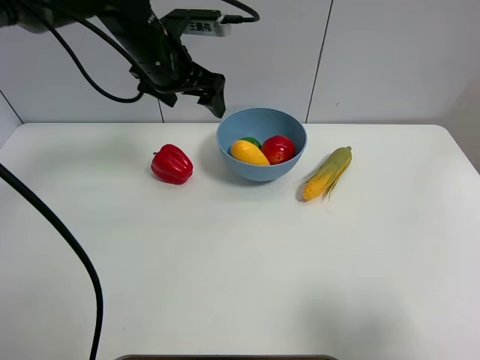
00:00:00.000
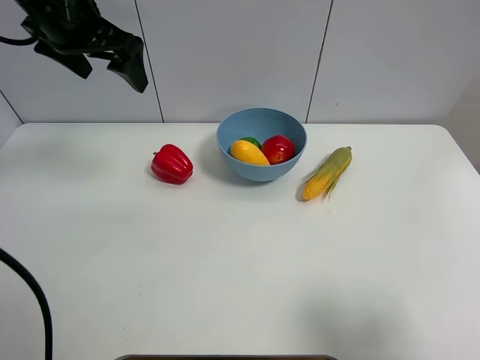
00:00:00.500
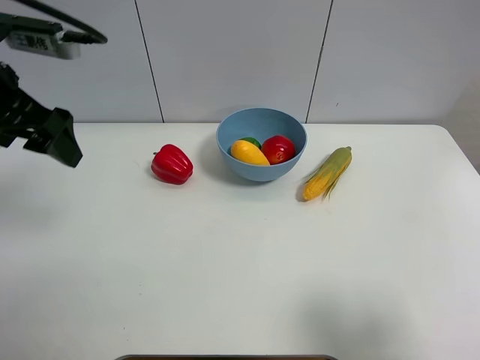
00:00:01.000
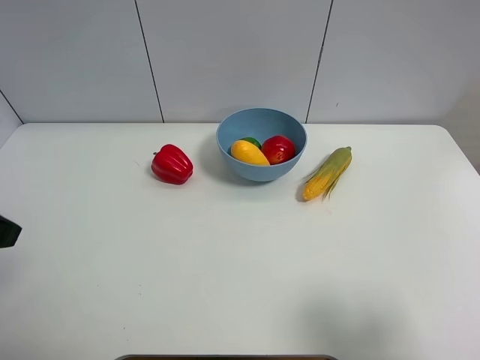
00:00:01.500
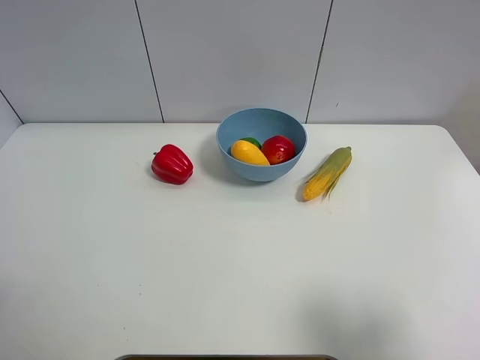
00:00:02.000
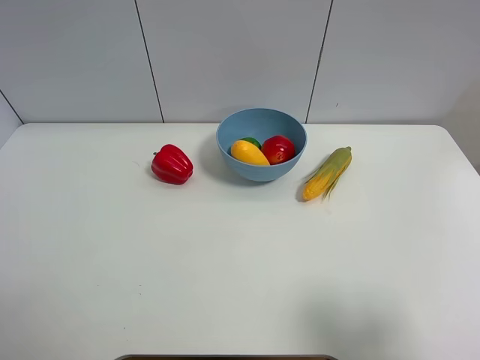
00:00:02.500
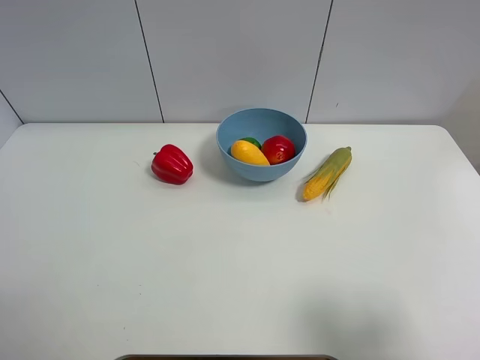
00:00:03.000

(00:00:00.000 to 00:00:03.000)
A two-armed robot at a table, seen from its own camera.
Task of the whole recording: Put the three fruits on the table into a bowl.
00:00:00.000 - 00:00:01.500: The left gripper heads backward and to the left, covering some 35 cm.

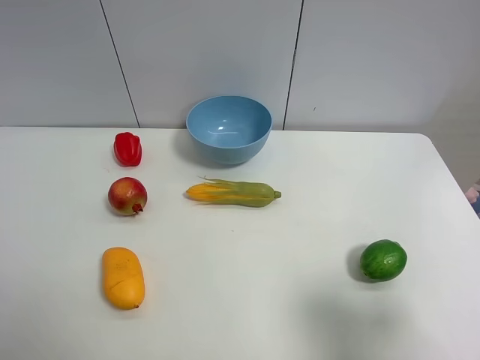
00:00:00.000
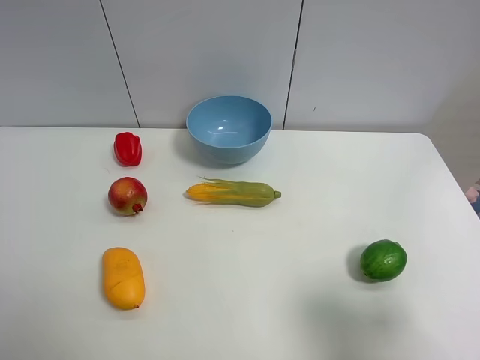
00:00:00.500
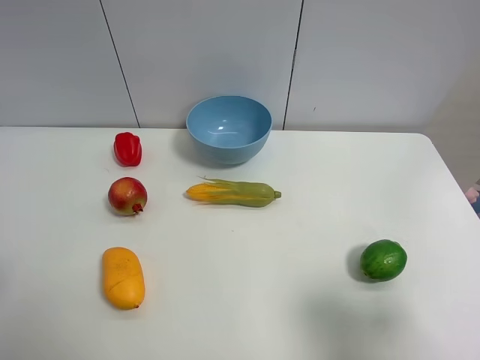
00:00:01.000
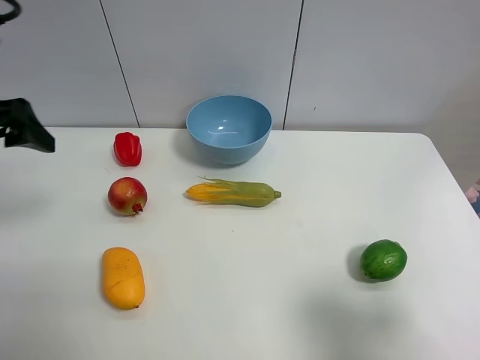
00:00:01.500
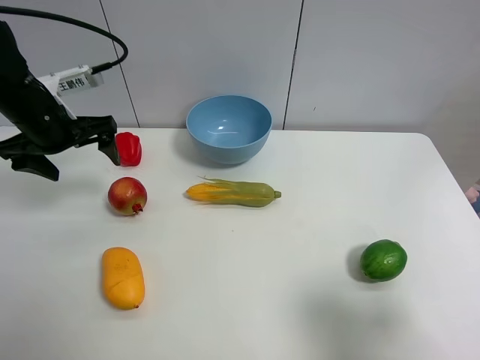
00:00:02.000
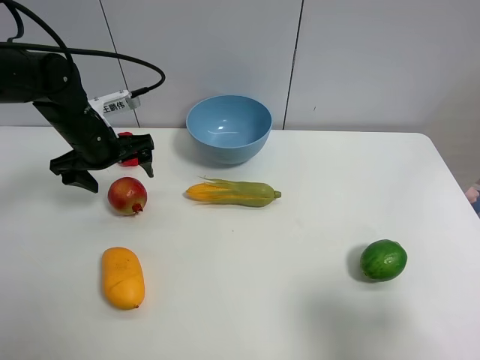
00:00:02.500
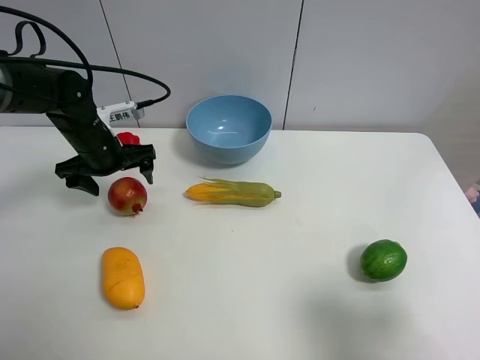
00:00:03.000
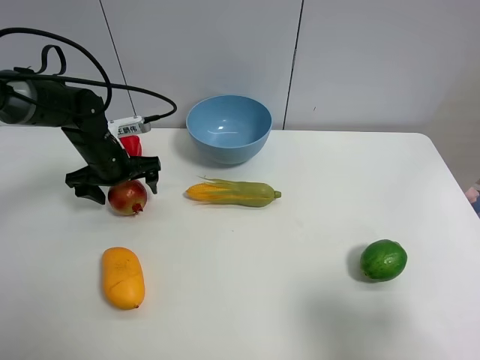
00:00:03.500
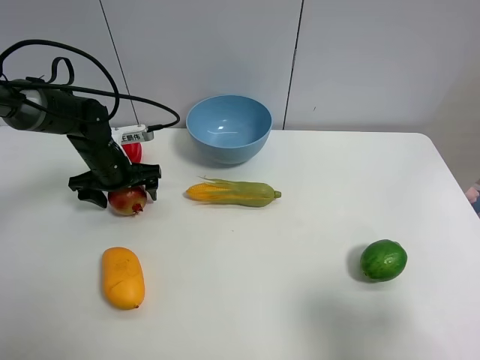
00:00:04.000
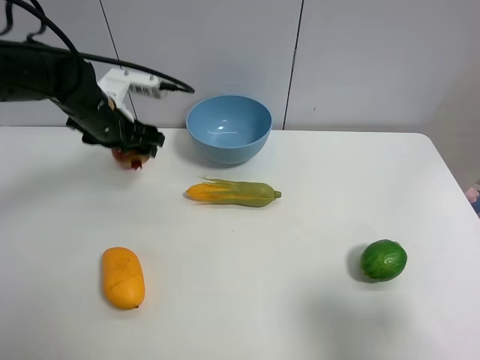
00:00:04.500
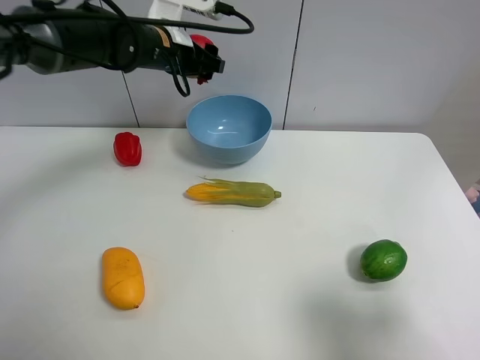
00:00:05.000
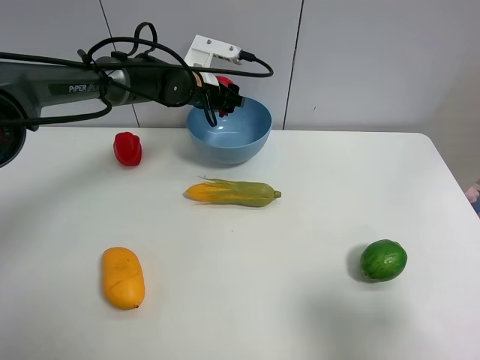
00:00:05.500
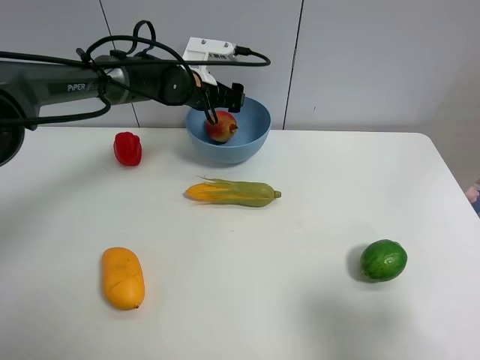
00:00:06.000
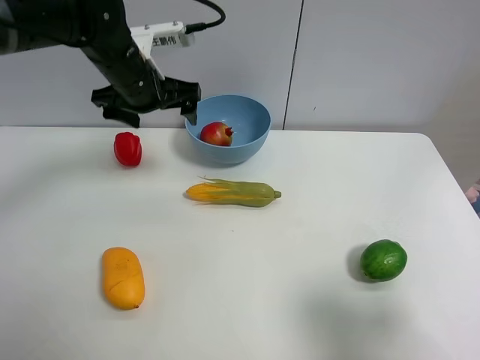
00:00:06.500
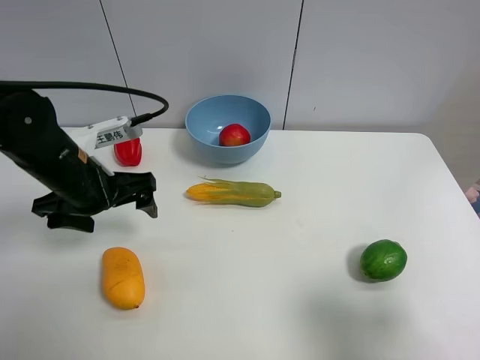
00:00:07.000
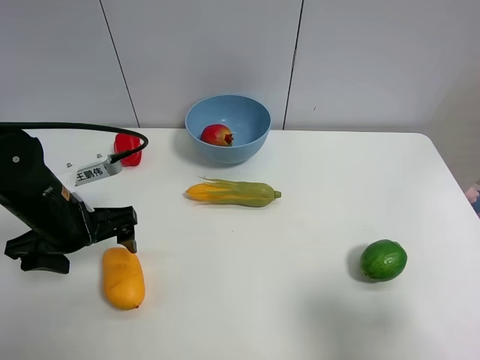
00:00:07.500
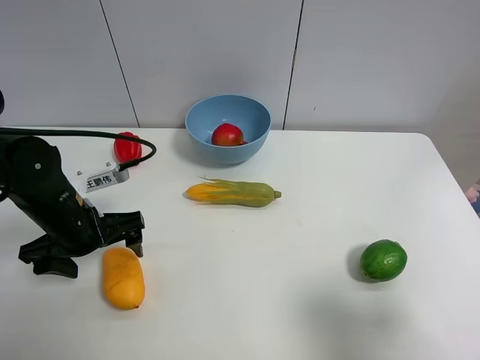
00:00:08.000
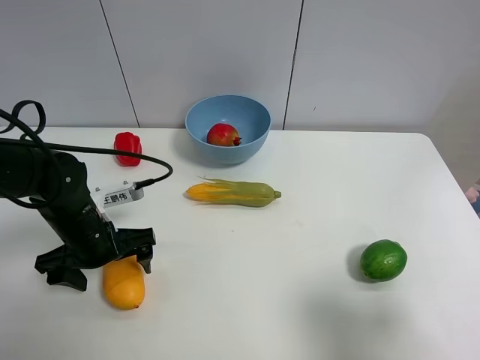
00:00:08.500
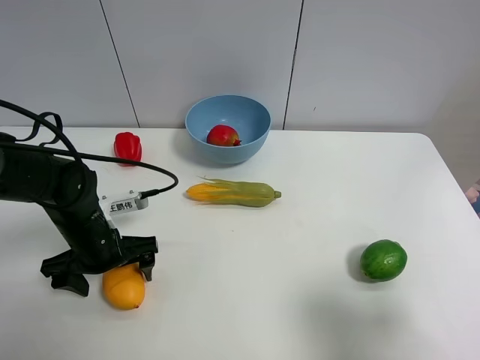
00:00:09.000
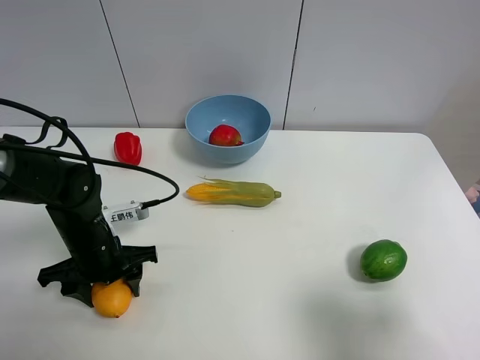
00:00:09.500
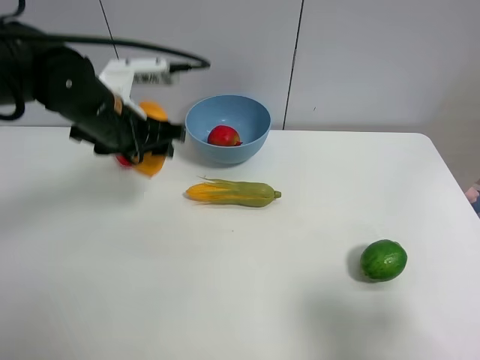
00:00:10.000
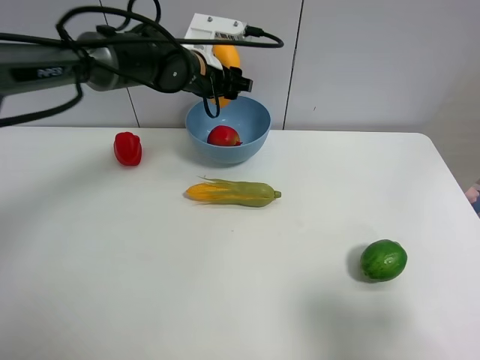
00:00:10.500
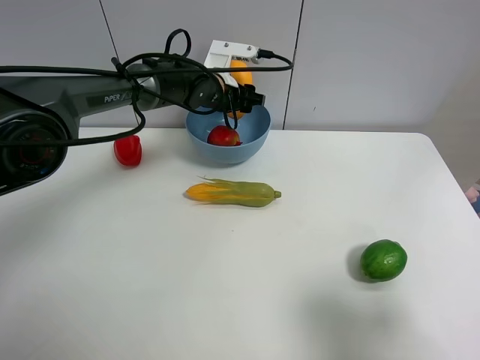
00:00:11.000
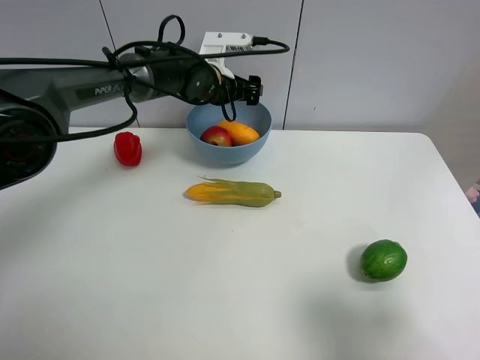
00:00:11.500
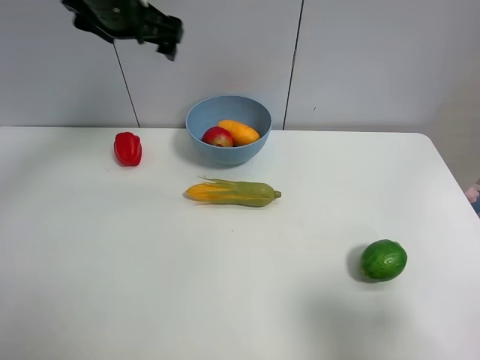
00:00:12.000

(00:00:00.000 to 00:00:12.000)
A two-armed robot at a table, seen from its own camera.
Task of the whole recording: Put the three fruits on the table into a bowl.
Step, 00:00:00.000 - 00:00:04.000: Grasp the pomegranate with left gripper.
Step, 00:00:04.500 - 00:00:06.000: Place the pomegranate in the blue bowl with left gripper.
Step, 00:00:06.500 - 00:00:09.000: Grasp the mango with left gripper.
Step, 00:00:09.500 - 00:00:11.500: Place the mango in the blue bowl with left gripper.
00:00:00.000 - 00:00:02.000: The left gripper is displaced forward by roughly 35 cm.
00:00:02.000 - 00:00:04.000: The left gripper shifts roughly 15 cm downward.
00:00:04.000 - 00:00:06.000: The left gripper shifts roughly 20 cm to the right, forward and upward, and closes and opens again.
00:00:06.000 - 00:00:08.000: The left gripper is displaced backward and to the left by approximately 25 cm.
00:00:08.000 - 00:00:10.000: The left gripper is displaced upward, forward and to the right by some 15 cm, and closes up.
00:00:10.000 - 00:00:12.000: The left gripper shifts about 10 cm upward and forward, and opens its fingers.

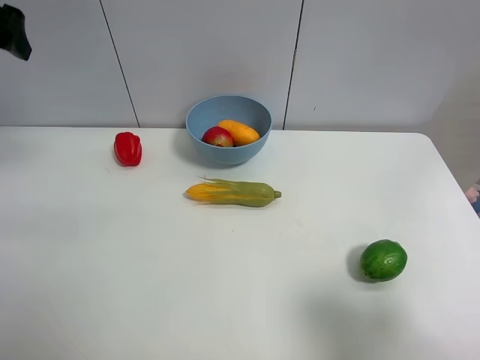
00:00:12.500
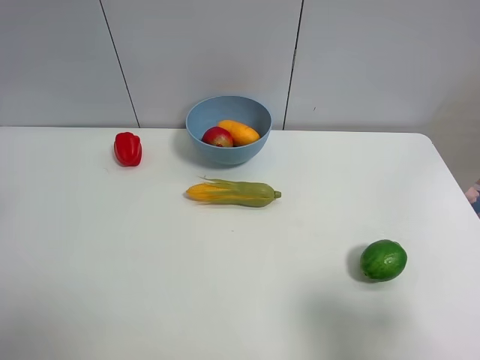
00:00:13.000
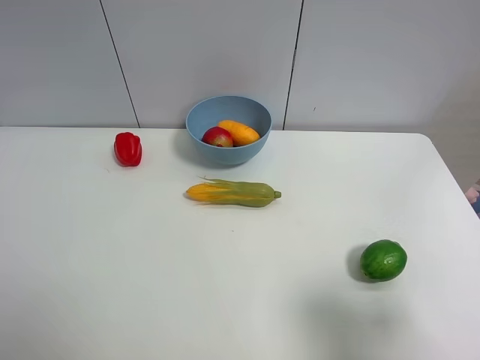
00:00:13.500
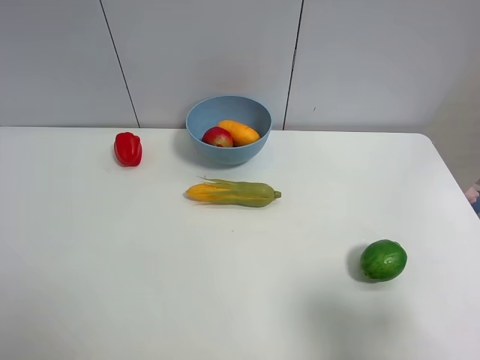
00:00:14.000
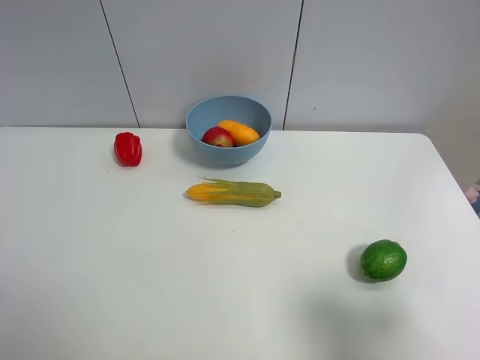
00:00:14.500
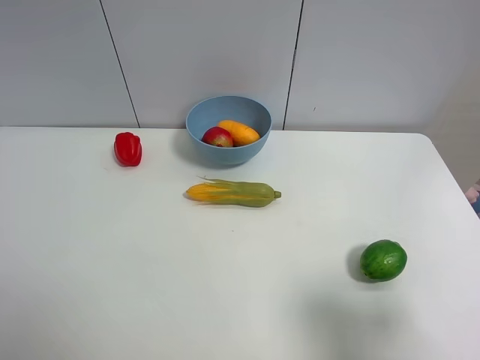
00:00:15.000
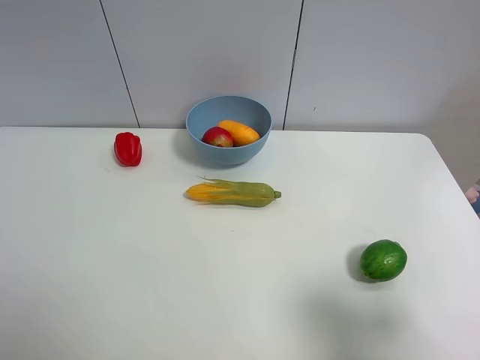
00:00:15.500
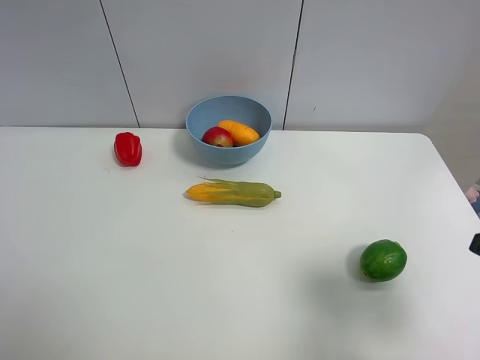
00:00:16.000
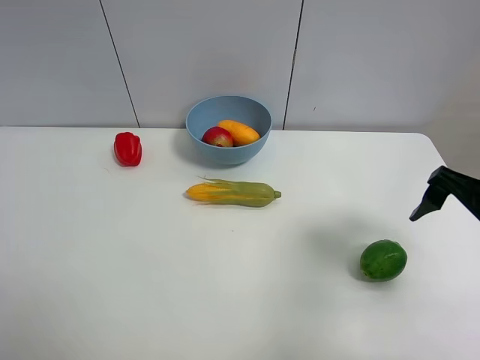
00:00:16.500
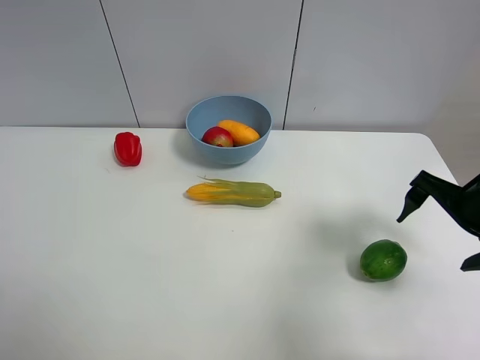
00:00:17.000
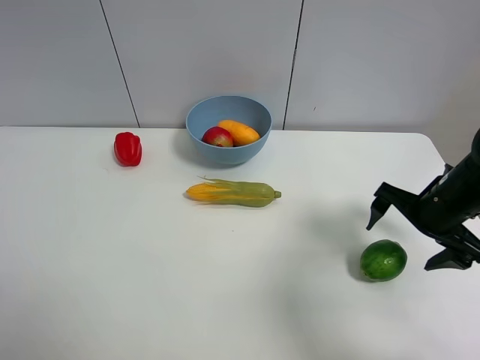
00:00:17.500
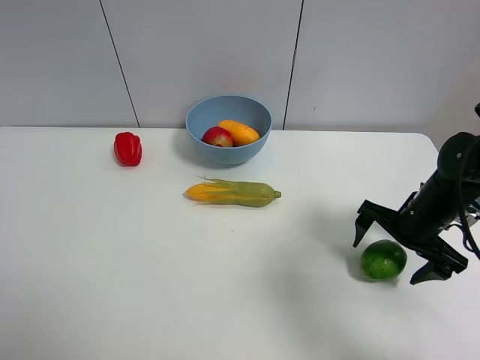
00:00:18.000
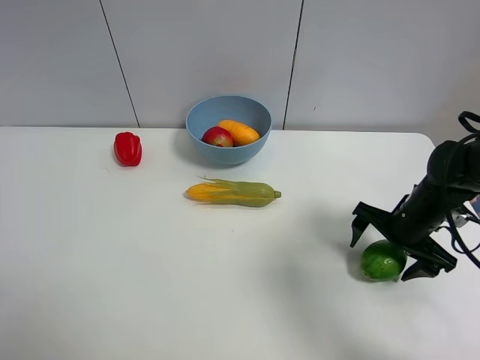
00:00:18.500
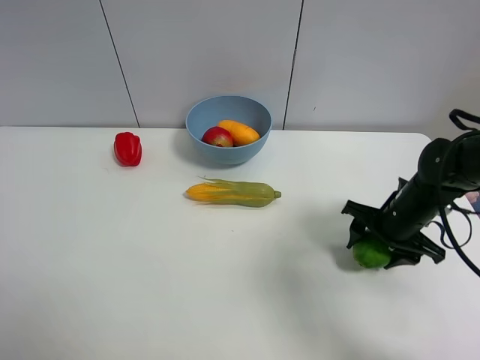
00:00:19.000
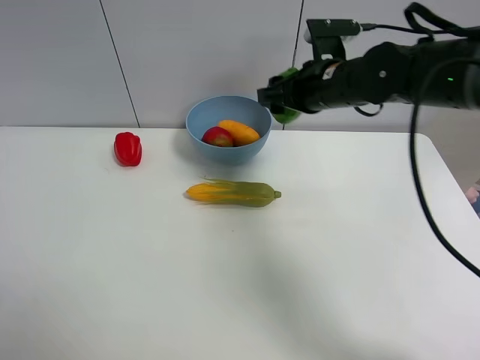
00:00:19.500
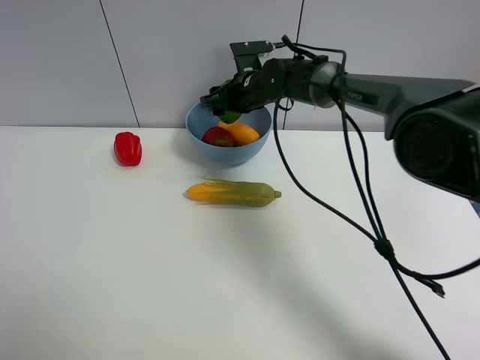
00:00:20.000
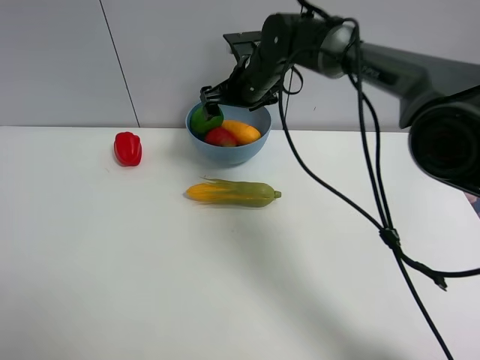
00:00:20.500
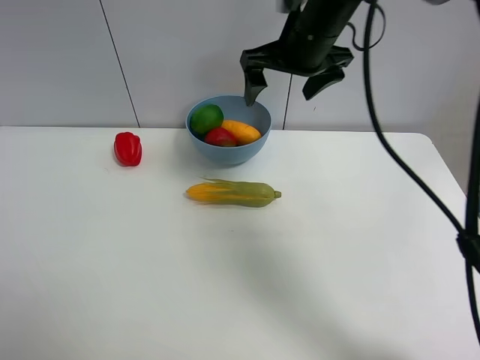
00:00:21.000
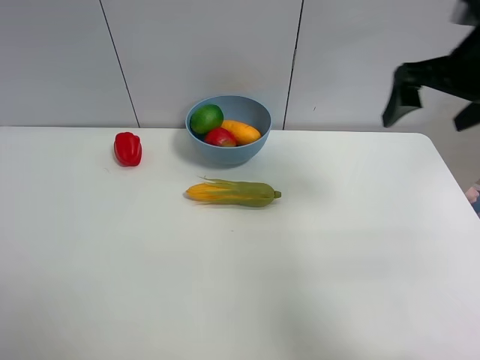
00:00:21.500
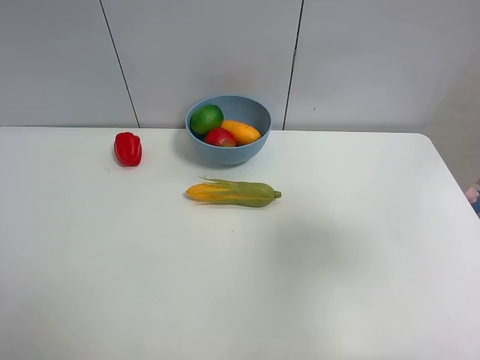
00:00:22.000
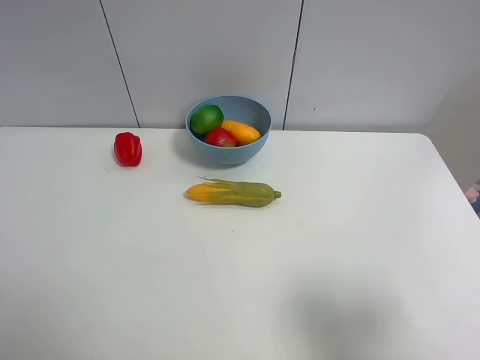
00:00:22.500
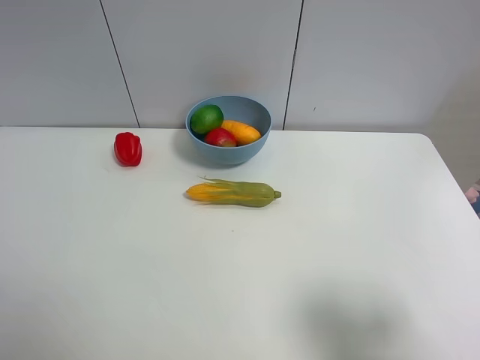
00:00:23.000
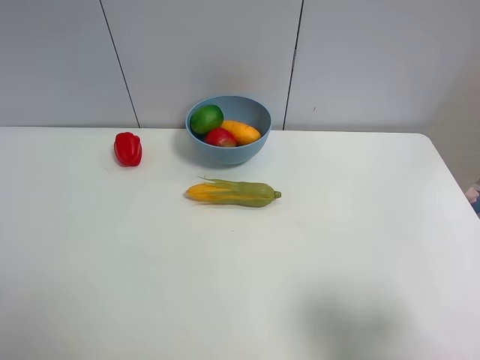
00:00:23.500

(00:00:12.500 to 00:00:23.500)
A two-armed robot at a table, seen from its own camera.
Task of the whole recording: Put the three fruits on the table into a bowl.
Step, 00:00:12.500 - 00:00:18.500: Grasp the green lemon with right gripper.
Step, 00:00:19.000 - 00:00:20.500: Place the green lemon in the blue bowl with right gripper.
00:00:12.500 - 00:00:14.500: The left gripper is displaced backward by about 35 cm.
00:00:14.500 - 00:00:16.000: The right gripper shifts approximately 5 cm forward.
00:00:16.000 - 00:00:18.000: The right gripper travels forward and downward by approximately 25 cm.
00:00:18.000 - 00:00:20.000: The right gripper moves to the left and forward, about 35 cm, and closes.
00:00:20.000 - 00:00:21.500: The right gripper is displaced to the right, backward and upward by some 35 cm, and opens its fingers.
00:00:21.500 - 00:00:23.500: The right gripper moves backward, approximately 25 cm.
